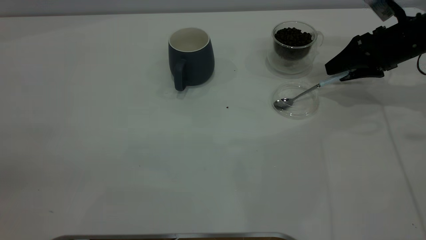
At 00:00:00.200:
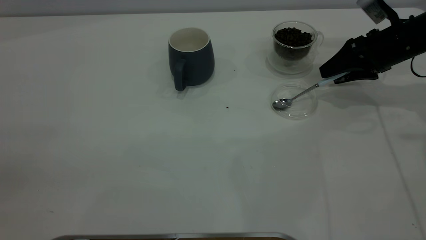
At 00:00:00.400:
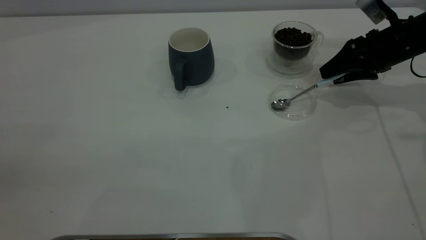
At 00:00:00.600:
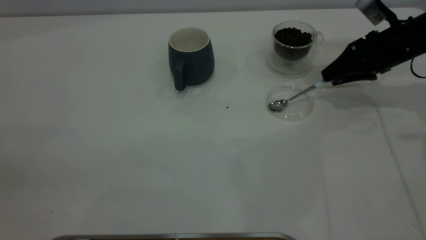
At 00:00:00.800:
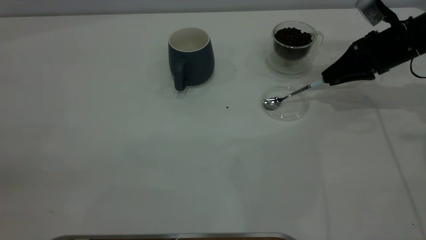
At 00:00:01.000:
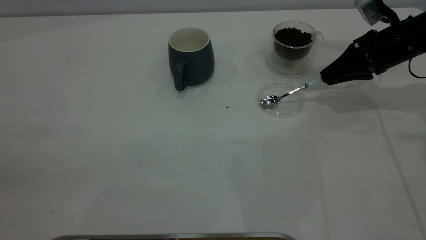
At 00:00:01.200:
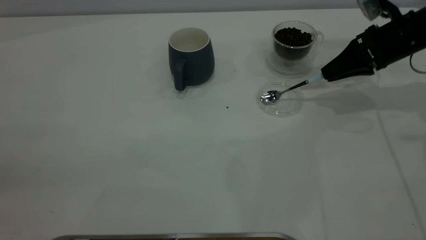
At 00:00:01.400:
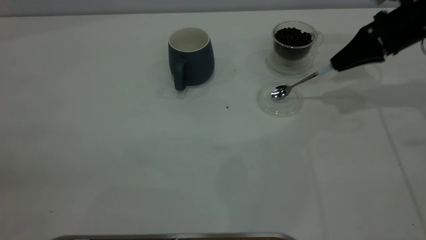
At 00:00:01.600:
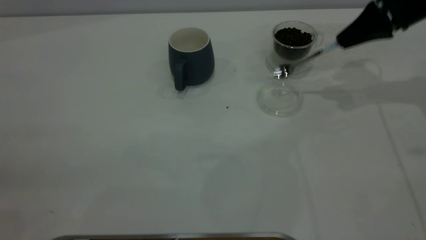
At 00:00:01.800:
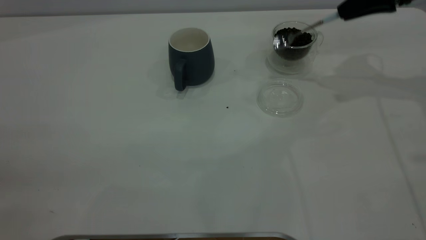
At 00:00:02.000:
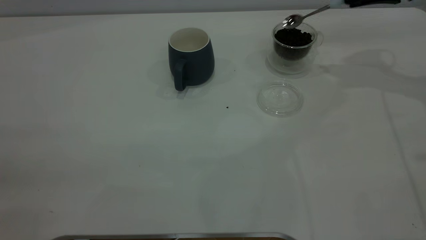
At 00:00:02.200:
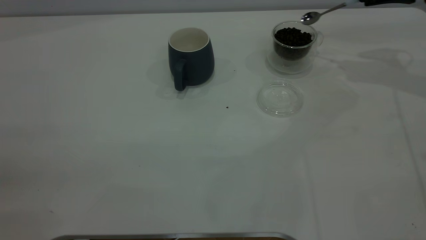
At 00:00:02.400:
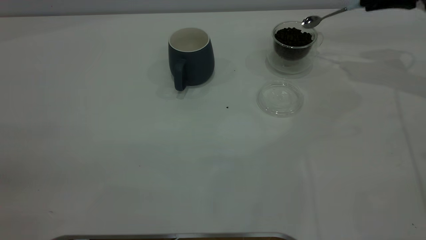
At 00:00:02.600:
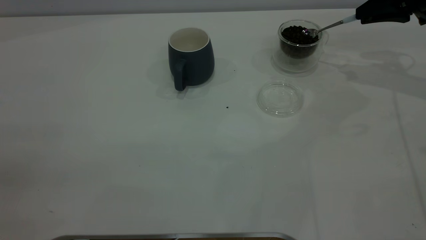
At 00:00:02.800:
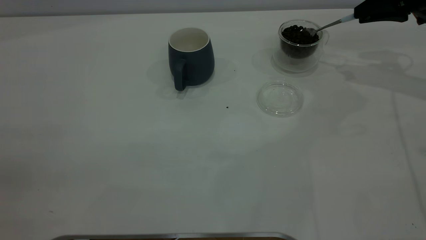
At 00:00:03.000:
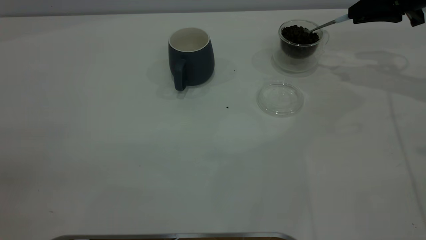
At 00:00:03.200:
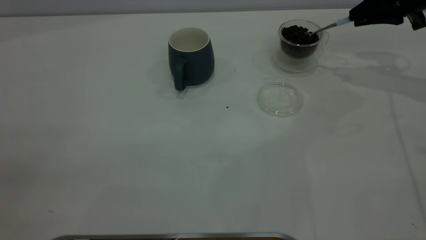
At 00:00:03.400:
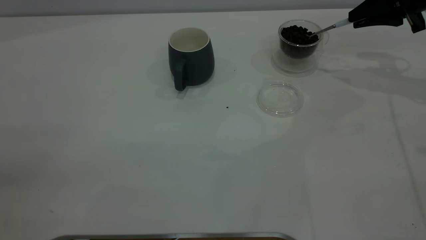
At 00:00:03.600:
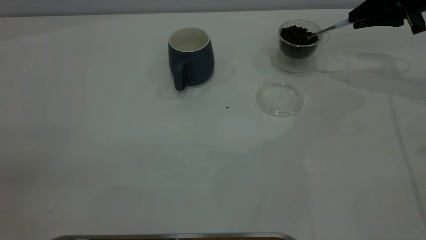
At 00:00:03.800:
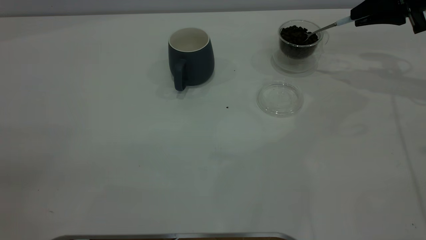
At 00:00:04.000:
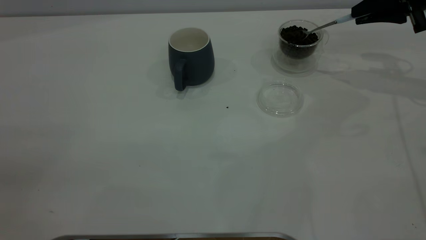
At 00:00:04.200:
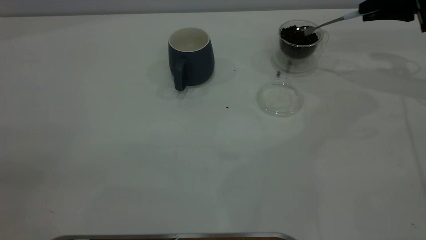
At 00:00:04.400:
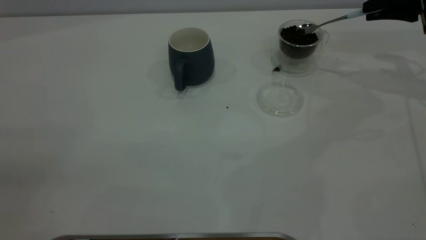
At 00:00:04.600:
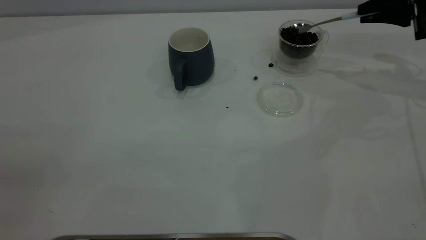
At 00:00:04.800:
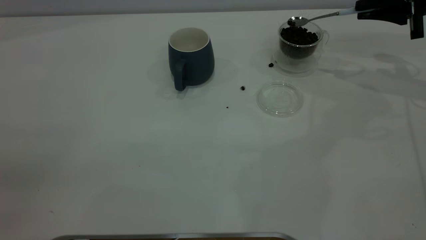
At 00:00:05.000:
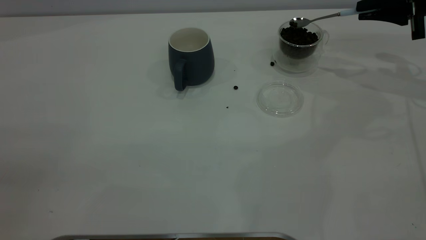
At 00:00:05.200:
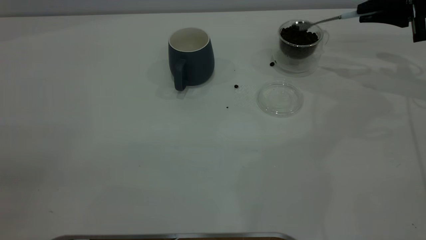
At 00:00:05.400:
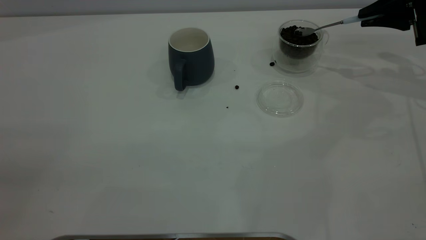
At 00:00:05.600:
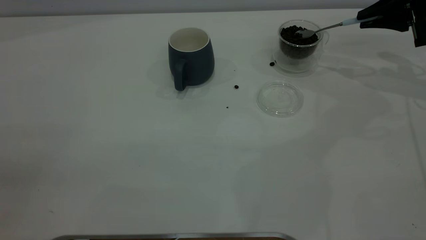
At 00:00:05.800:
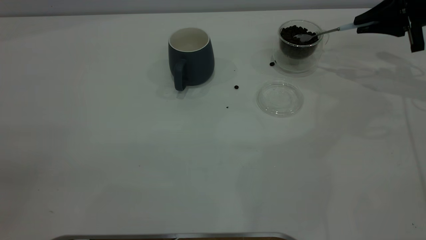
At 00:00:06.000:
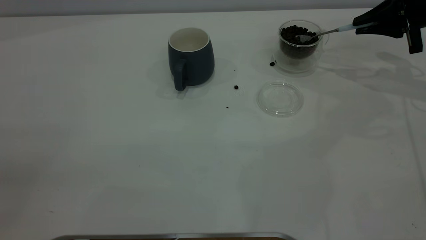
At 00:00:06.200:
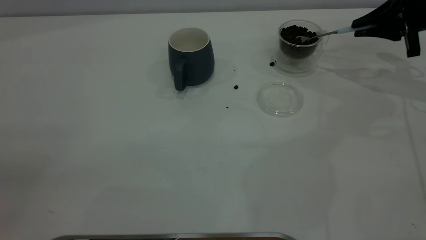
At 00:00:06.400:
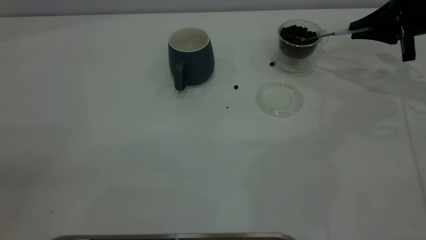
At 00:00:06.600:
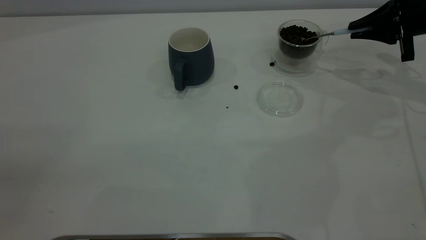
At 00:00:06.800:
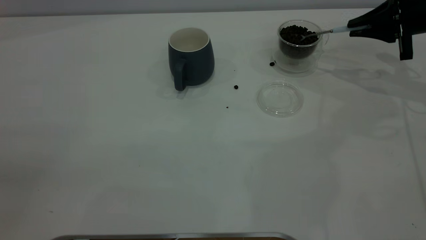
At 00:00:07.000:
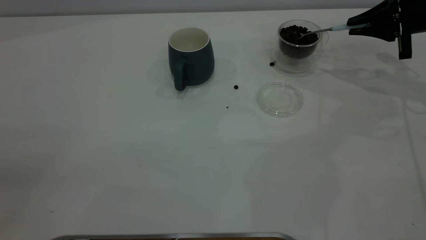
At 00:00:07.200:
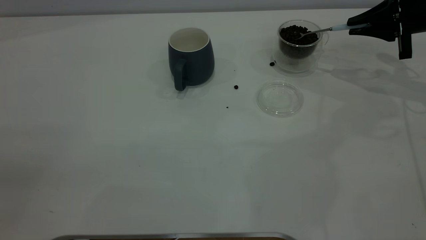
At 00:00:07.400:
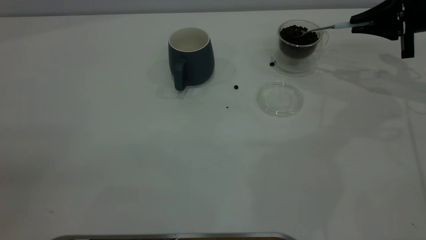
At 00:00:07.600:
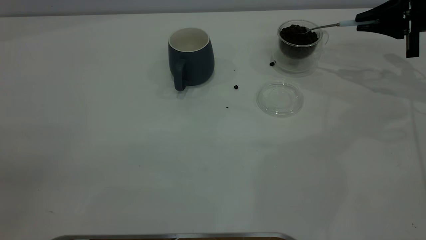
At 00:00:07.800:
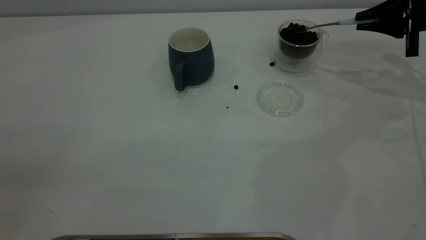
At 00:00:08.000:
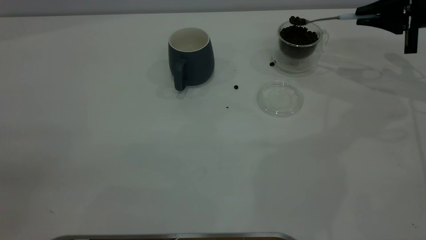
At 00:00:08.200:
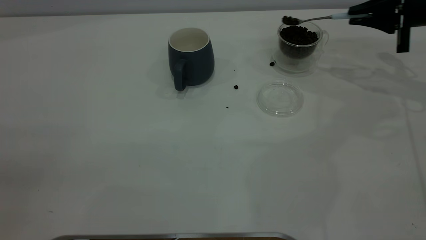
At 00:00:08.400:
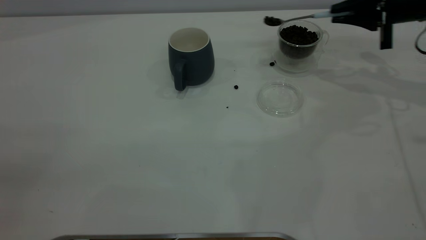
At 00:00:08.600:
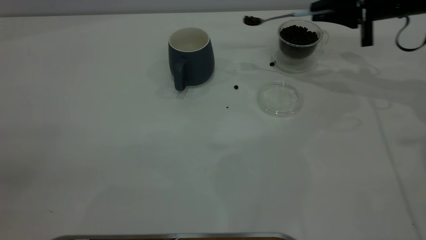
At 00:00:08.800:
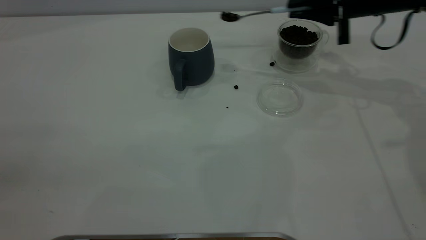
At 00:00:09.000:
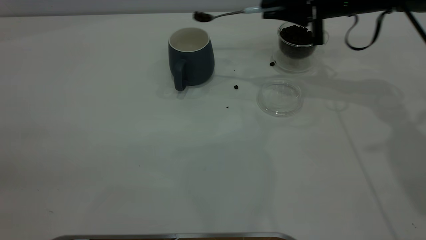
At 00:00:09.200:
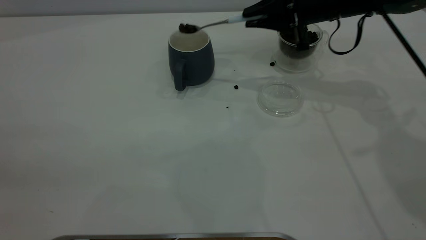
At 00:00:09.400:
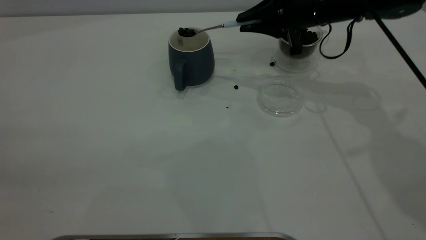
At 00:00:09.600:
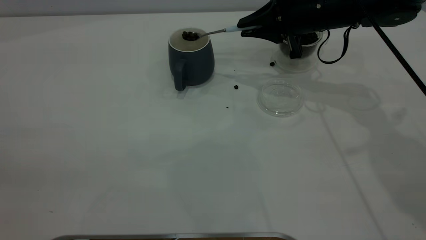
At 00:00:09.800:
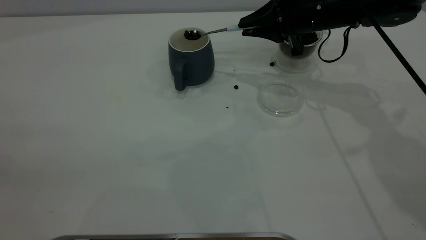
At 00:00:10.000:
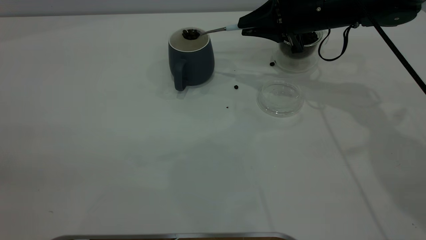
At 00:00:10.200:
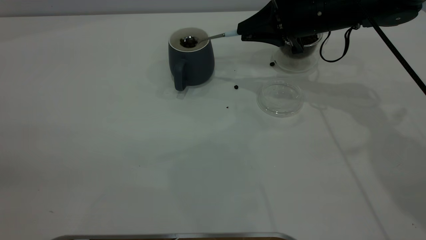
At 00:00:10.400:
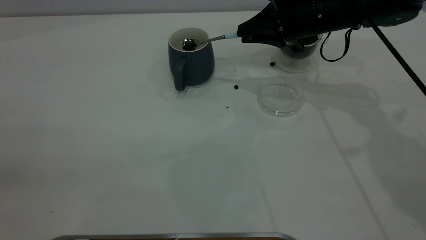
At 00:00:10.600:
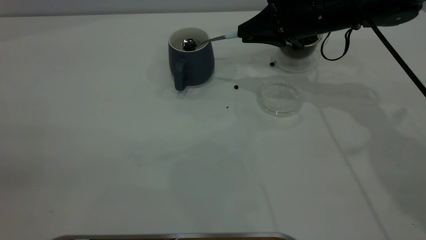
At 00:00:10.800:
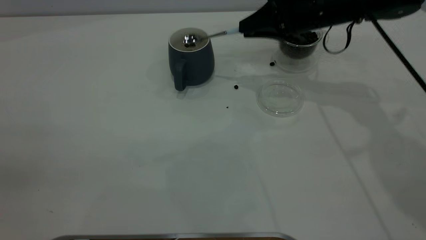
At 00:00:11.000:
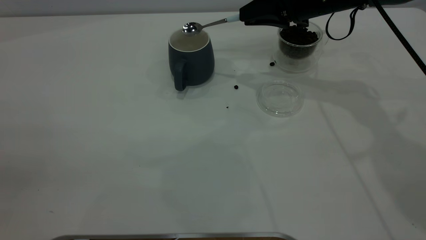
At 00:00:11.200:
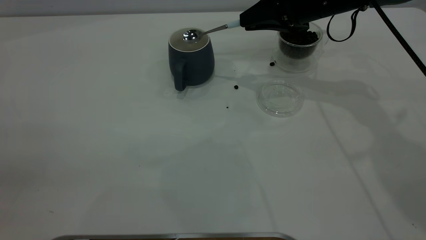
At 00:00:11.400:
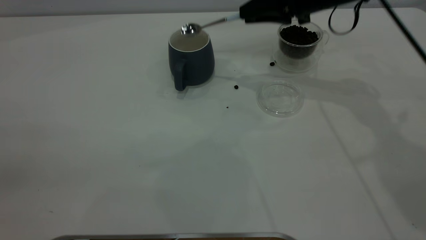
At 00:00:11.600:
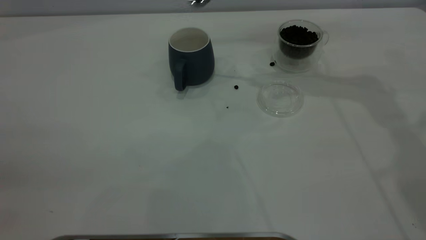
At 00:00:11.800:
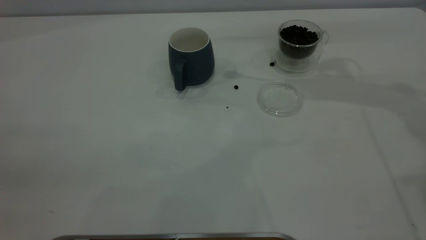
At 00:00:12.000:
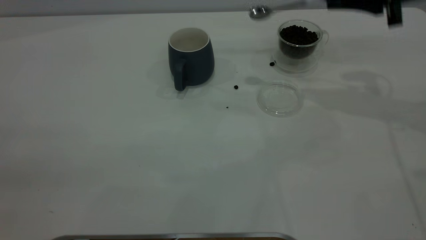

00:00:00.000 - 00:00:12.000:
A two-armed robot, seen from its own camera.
Task of the whole recording: the left gripper place the grey cup in the center of the table, the right gripper take the blue spoon from the cup lid and scoop out the coffee beans from the coffee cup and put them into the grey cup, the right gripper put the spoon back into the cup lid.
Step, 00:00:01.800 - 00:00:11.400: Scoop a spoonful of beans into the cup.
00:00:00.000 - 00:00:01.600: The right gripper travels upward by approximately 10 cm, and closes its fingers.
00:00:03.000 - 00:00:04.400: The grippers stay close to where they were, moving slightly.
00:00:04.400 - 00:00:07.600: The grippers stay close to where they were, moving slightly.
00:00:07.600 - 00:00:09.000: The right gripper goes some 15 cm to the left.
00:00:10.400 - 00:00:12.000: The right gripper shifts some 15 cm to the right, upward and backward.

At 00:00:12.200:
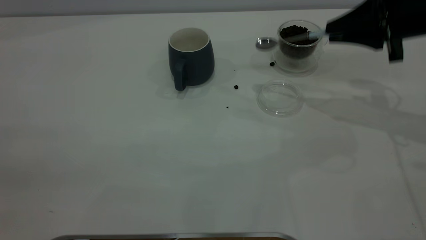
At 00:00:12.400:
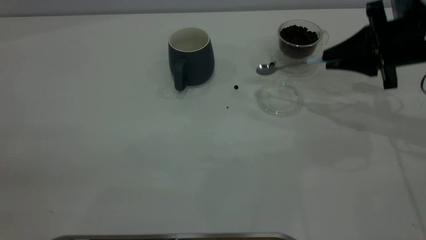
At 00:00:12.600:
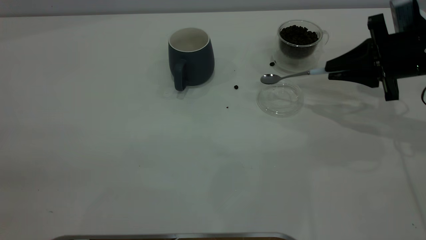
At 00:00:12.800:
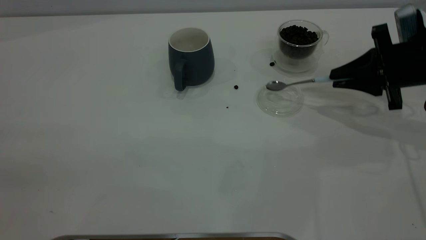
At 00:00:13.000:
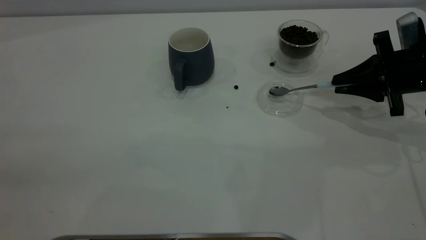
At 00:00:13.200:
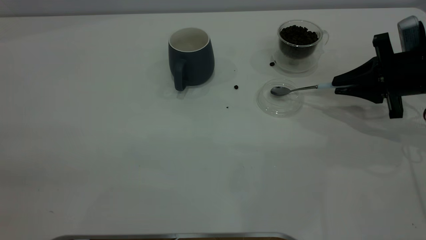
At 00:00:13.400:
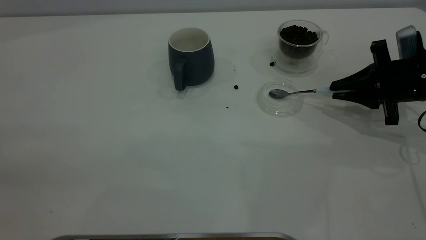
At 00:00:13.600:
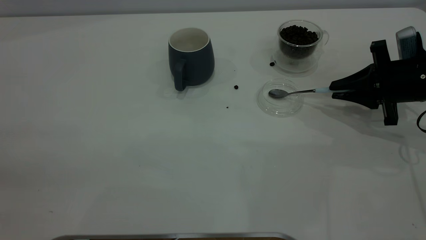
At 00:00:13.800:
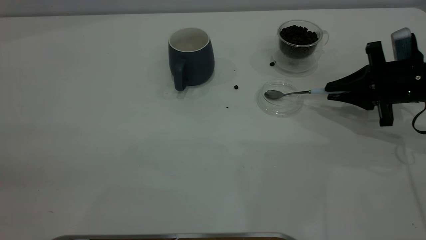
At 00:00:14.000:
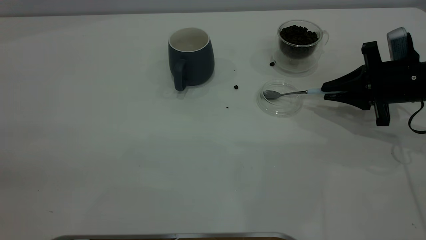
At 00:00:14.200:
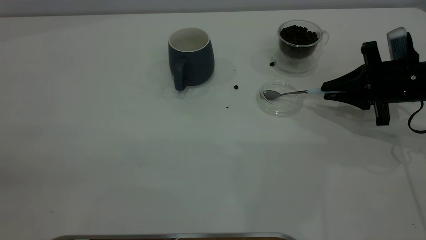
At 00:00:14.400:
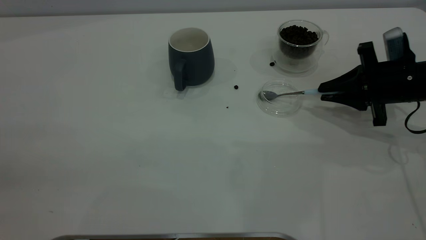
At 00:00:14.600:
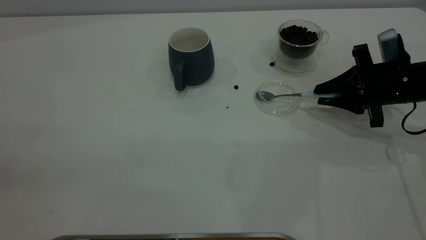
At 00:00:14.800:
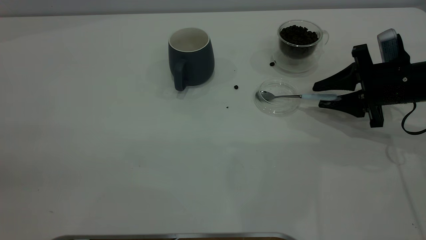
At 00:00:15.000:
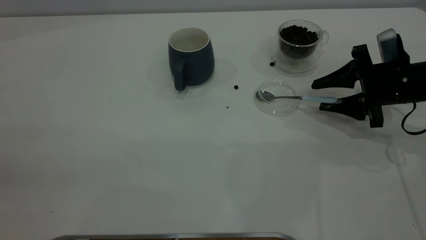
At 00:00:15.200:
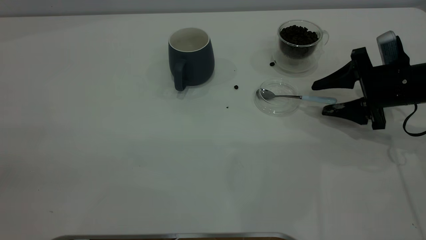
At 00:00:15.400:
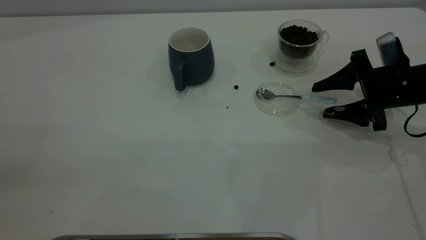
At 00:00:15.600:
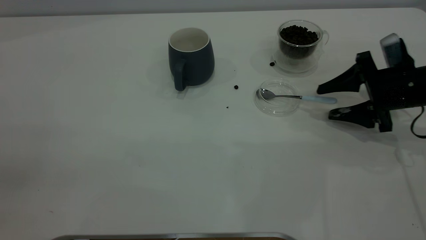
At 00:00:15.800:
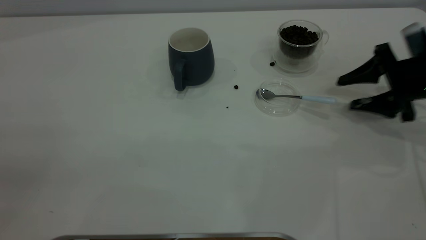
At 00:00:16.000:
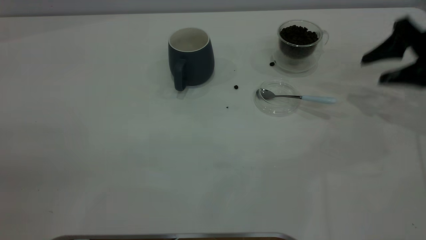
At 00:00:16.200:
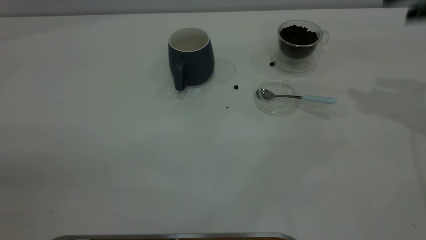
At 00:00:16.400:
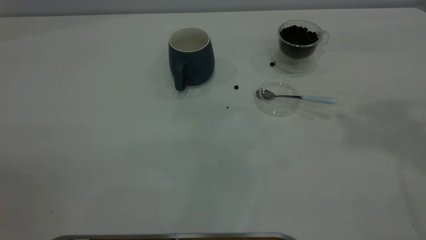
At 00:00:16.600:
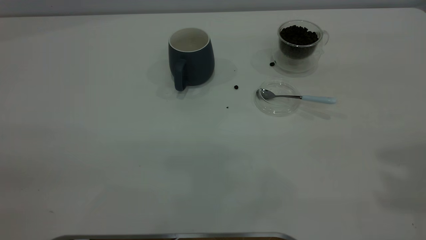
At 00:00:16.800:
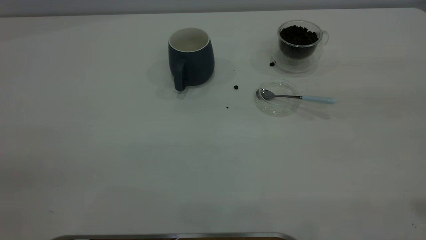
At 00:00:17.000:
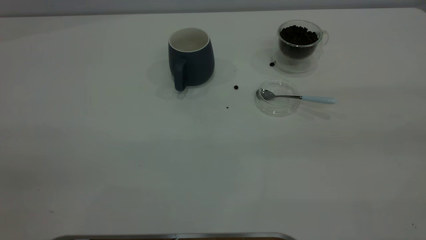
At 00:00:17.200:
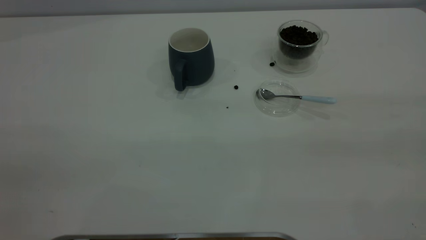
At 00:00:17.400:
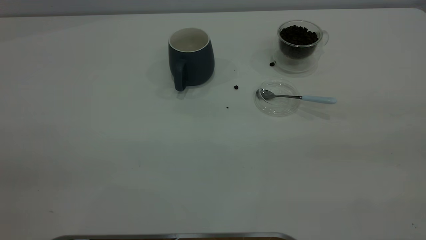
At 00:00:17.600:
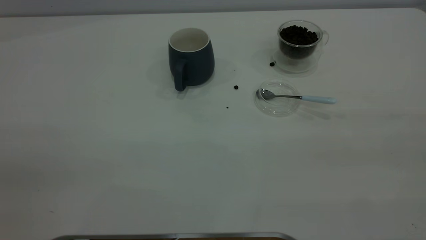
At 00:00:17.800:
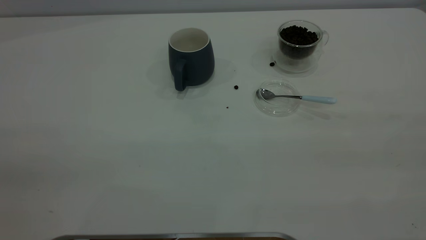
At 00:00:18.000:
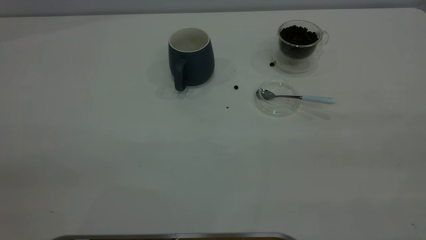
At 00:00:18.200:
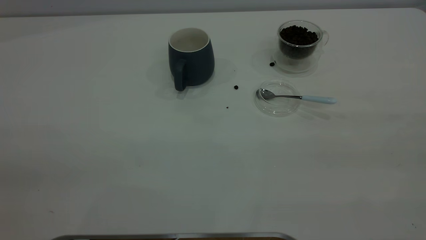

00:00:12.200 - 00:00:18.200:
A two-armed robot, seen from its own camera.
Task of the whole recording: the left gripper place the grey cup in the center of the table, the right gripper take the blue spoon from the cup lid and scoop out the coffee beans from the coffee cup and put them into the grey cup, the right gripper put the spoon back into the cup lid.
Step, 00:00:12.200 - 00:00:15.600: Place the spoon back in its original place.
00:00:12.200 - 00:00:13.800: The right gripper shifts roughly 10 cm downward.
00:00:13.800 - 00:00:15.200: The right gripper opens up.
00:00:15.200 - 00:00:16.600: The right gripper goes approximately 35 cm upward and backward.
